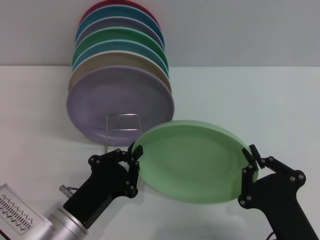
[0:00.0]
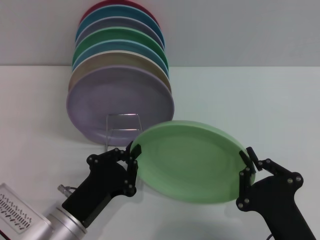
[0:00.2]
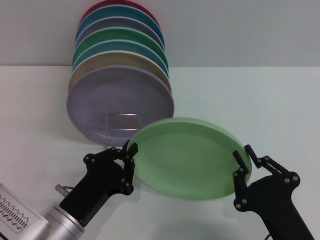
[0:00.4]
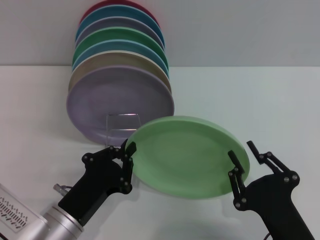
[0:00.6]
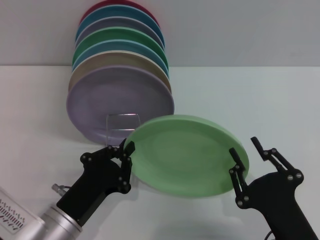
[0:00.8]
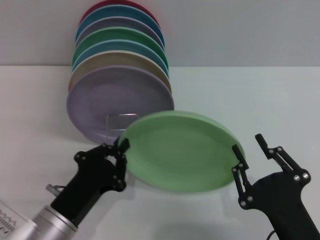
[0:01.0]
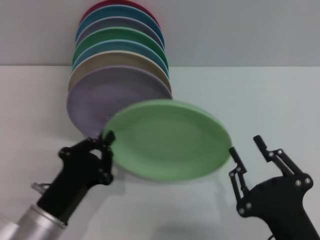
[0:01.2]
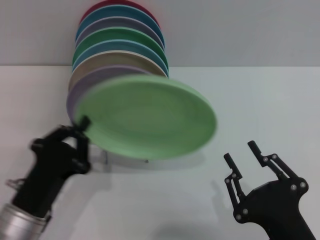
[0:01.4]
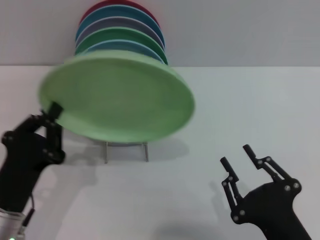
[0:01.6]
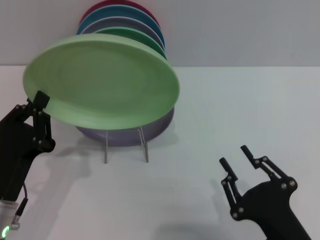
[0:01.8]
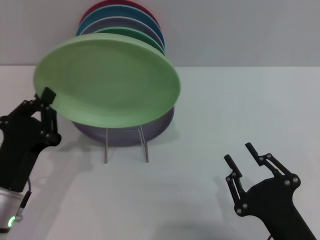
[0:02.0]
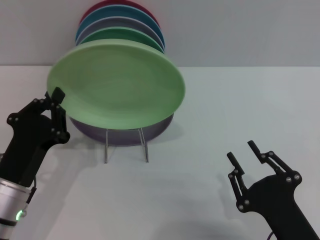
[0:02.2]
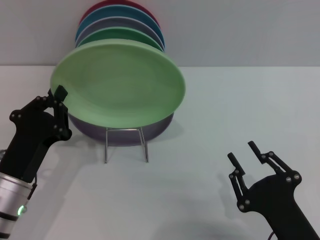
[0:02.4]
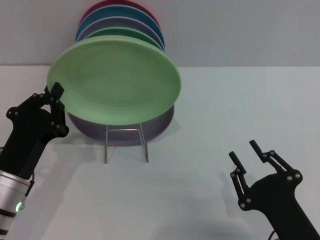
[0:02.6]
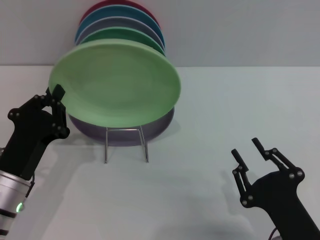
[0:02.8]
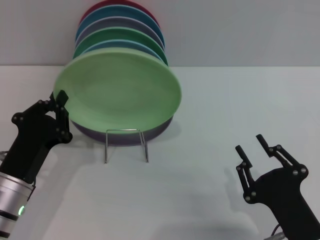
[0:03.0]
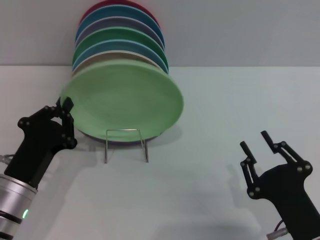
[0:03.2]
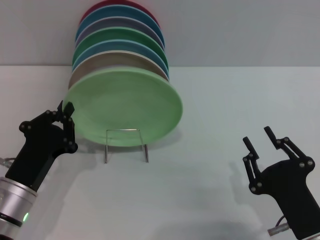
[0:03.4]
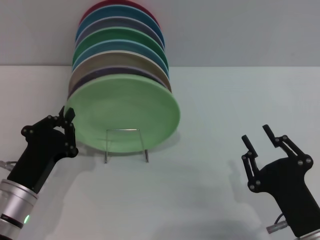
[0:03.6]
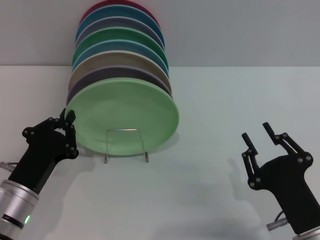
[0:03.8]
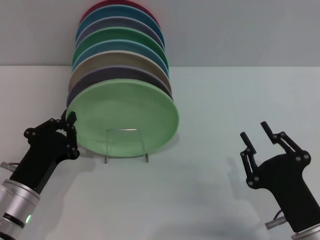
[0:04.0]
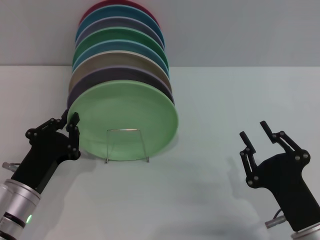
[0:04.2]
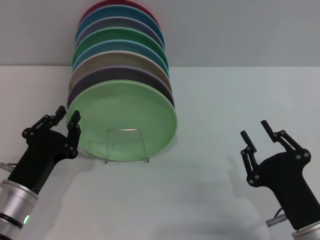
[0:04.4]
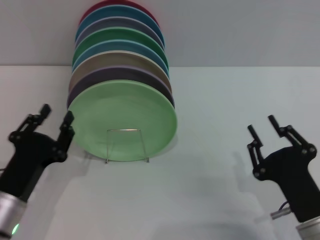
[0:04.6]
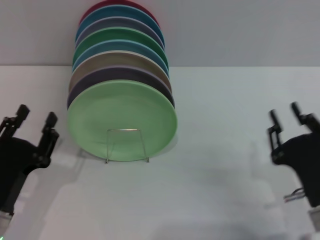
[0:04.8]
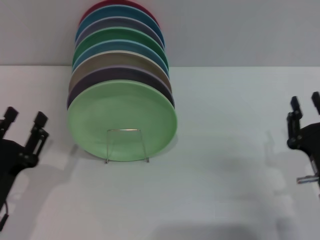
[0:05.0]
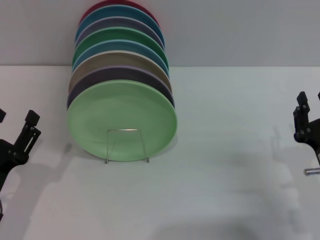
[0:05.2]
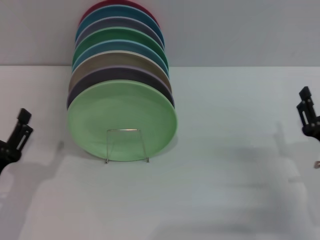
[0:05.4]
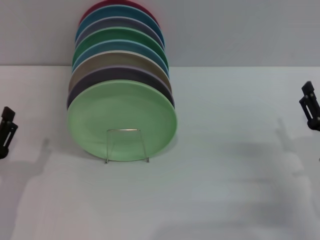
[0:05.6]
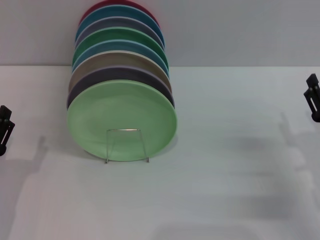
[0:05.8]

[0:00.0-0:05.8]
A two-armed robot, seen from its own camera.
Task of the whole recording: Grip the plate with one hand, pass it to the other, then set it on the shelf.
Step, 0:01.4 to 0:04.6: Place the plate on the shelf with the left gripper.
0:00.0 to 0:01.4: The right gripper opens.
0:01.4 to 0:02.8: The left gripper ends up approximately 5 cm from where it was.
0:04.4 to 0:05.8: The right gripper shifts some 10 cm to the right and forward, and opens up. The left gripper shifts about 5 cm to the left, and opens.
